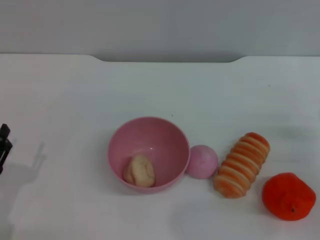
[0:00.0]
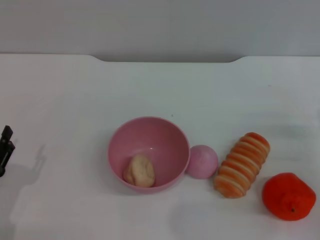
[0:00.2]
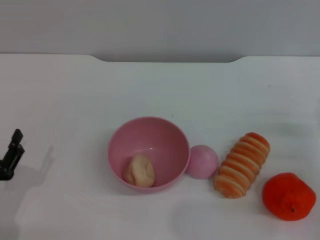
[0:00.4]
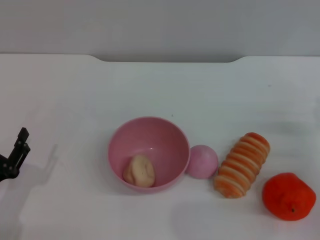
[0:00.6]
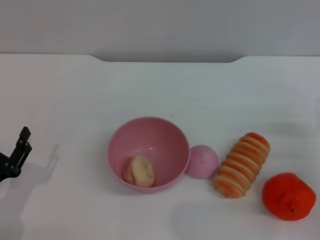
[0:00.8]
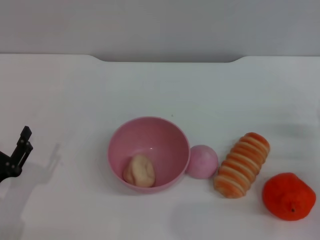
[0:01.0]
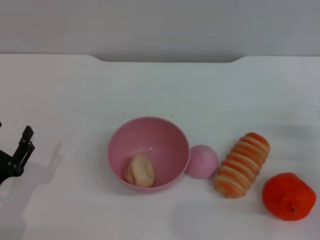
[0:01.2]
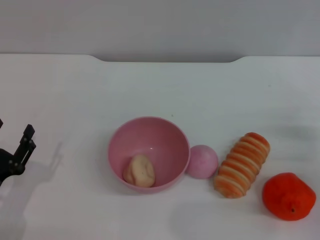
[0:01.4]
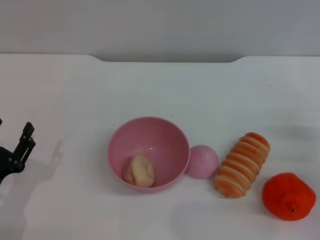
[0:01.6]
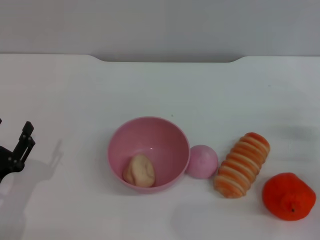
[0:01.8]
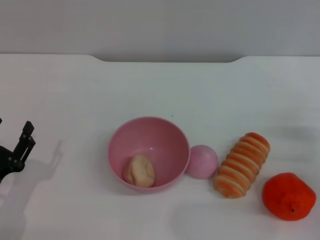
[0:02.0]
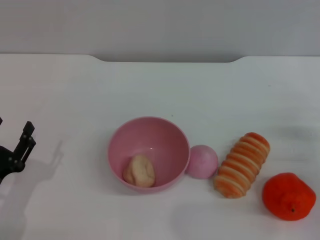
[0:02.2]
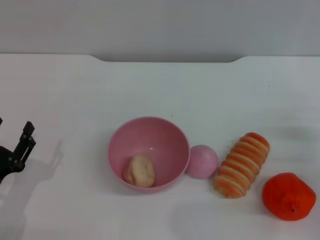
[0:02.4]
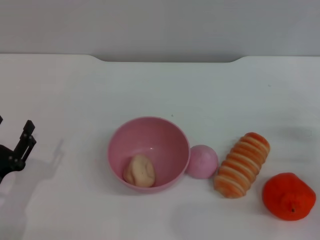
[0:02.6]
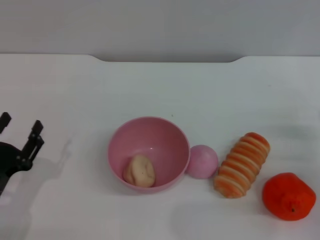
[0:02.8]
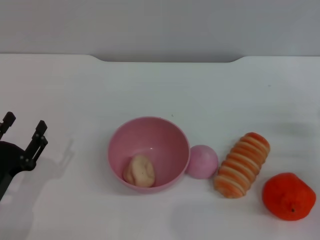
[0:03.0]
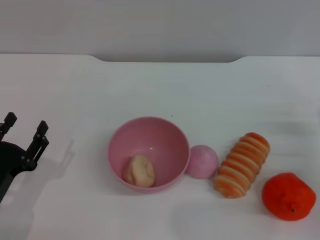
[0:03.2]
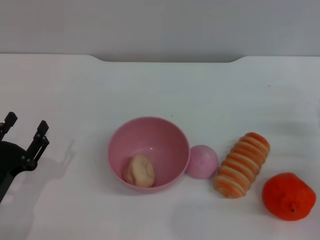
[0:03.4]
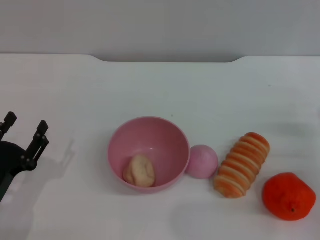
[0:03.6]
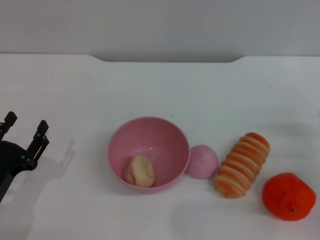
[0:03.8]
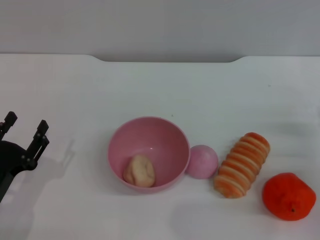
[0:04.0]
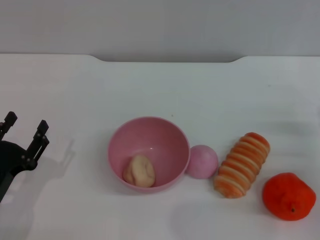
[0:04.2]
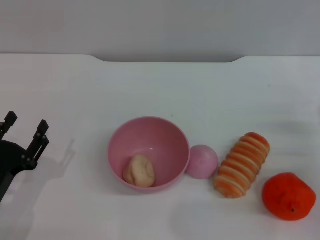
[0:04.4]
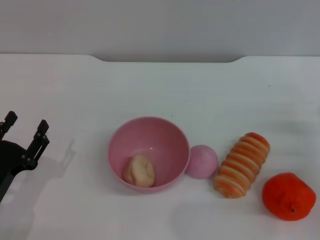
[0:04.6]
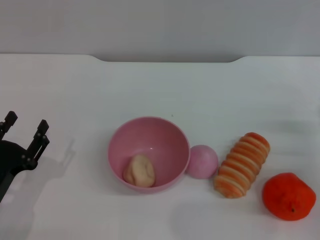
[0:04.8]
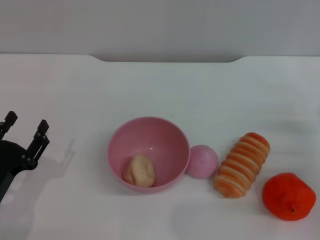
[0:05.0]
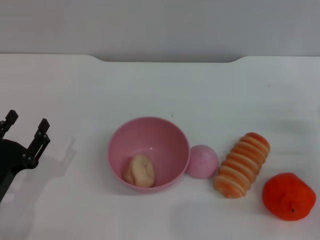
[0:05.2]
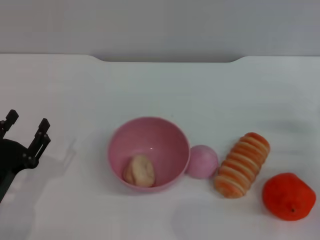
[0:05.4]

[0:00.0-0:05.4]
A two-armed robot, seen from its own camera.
Task of the whole recording: put the egg yolk pastry into the pink bowl and pour it out repeatedly.
0:00.0 to 0:01.4: There are only small adjustments of the grippers.
0:01.4 to 0:02.8: The two grippers keep their place.
0:02.8 to 0:05.4: The two grippers keep their place.
